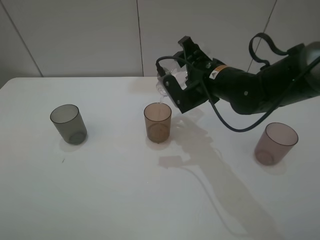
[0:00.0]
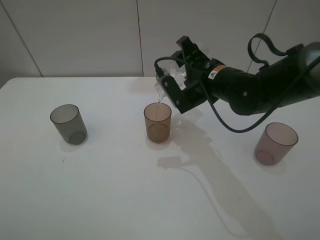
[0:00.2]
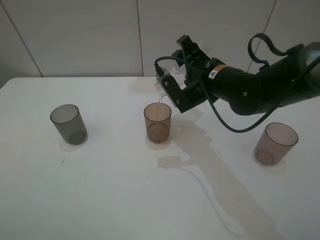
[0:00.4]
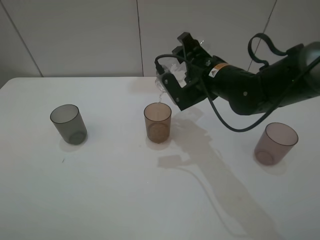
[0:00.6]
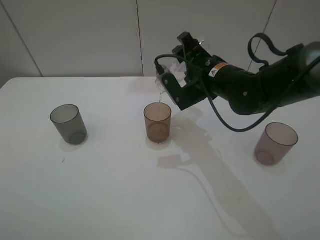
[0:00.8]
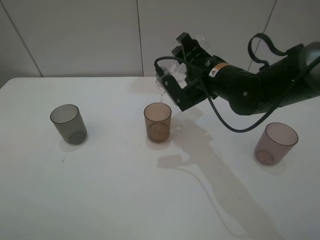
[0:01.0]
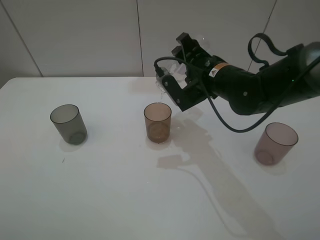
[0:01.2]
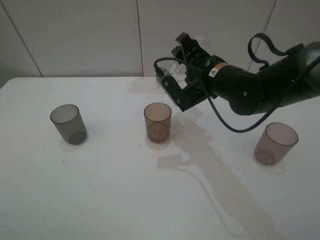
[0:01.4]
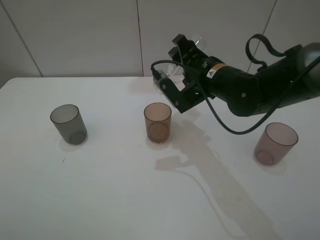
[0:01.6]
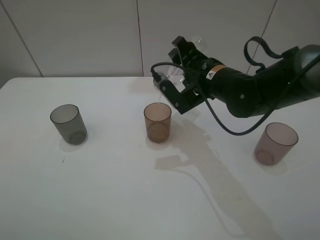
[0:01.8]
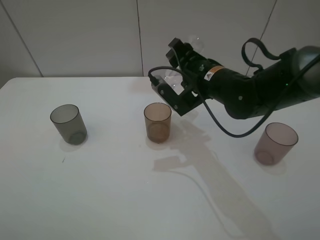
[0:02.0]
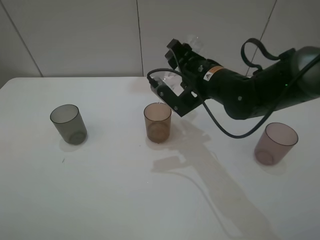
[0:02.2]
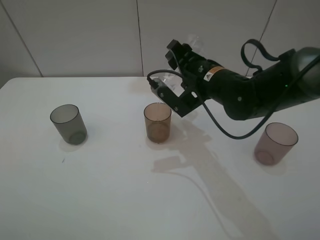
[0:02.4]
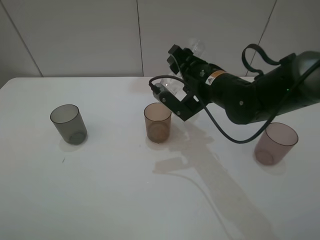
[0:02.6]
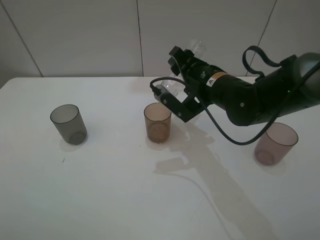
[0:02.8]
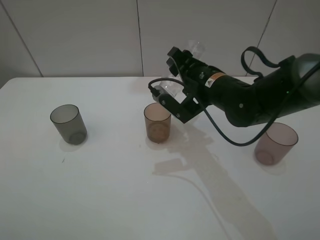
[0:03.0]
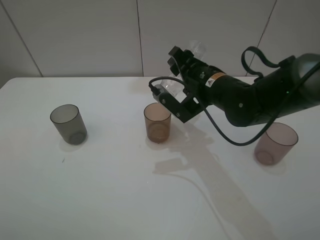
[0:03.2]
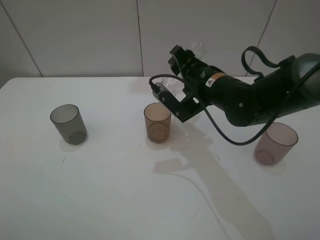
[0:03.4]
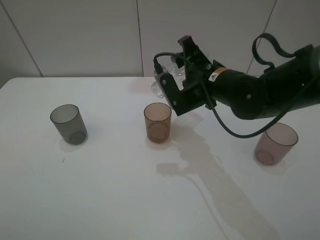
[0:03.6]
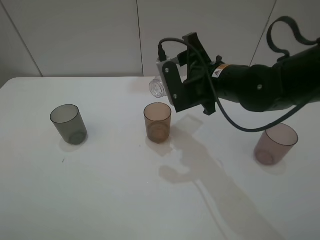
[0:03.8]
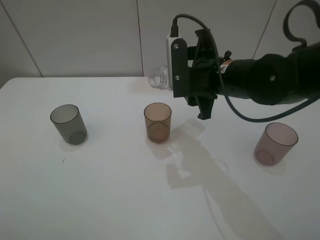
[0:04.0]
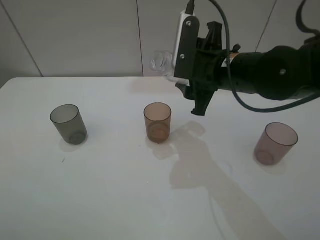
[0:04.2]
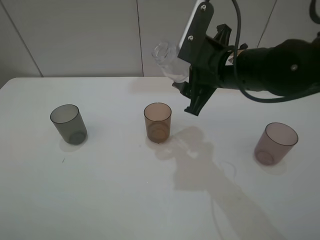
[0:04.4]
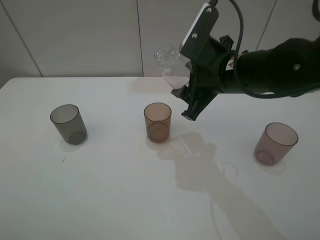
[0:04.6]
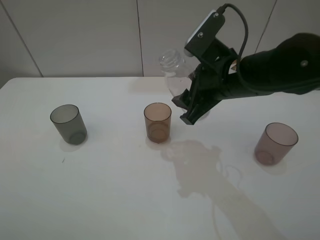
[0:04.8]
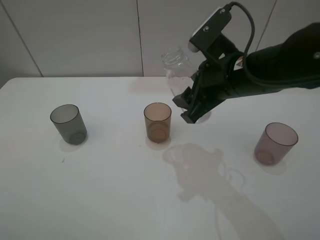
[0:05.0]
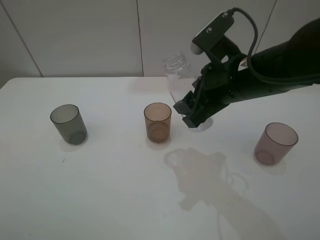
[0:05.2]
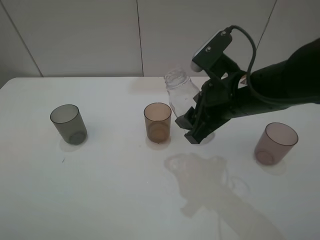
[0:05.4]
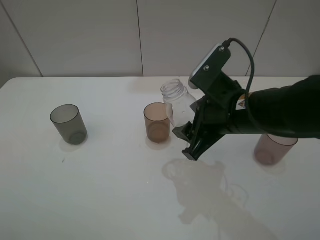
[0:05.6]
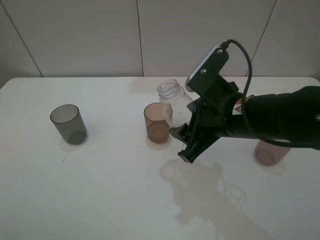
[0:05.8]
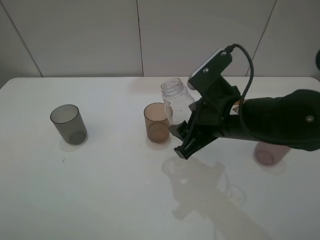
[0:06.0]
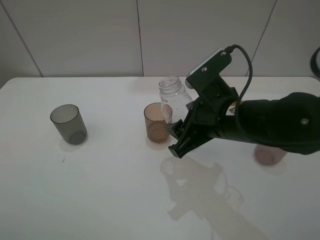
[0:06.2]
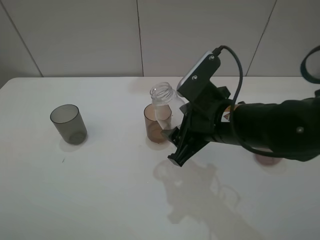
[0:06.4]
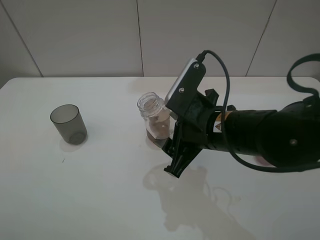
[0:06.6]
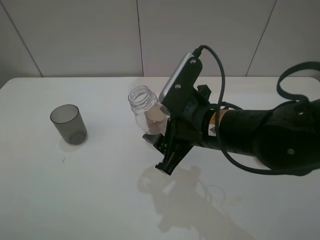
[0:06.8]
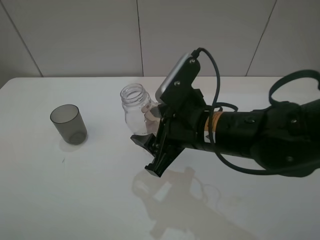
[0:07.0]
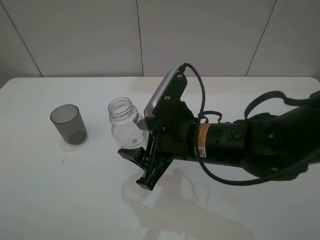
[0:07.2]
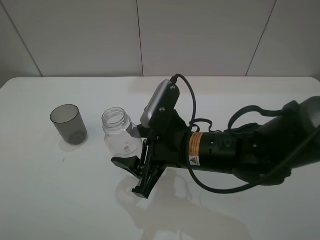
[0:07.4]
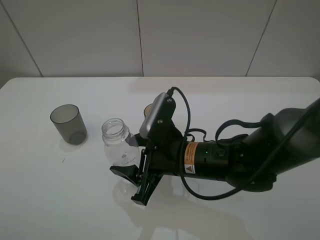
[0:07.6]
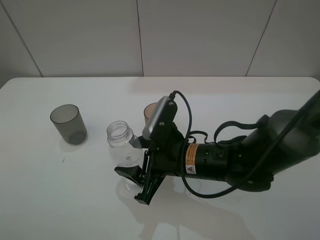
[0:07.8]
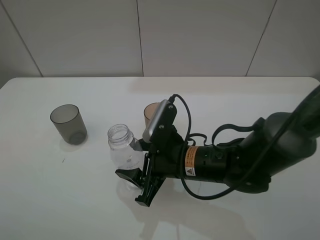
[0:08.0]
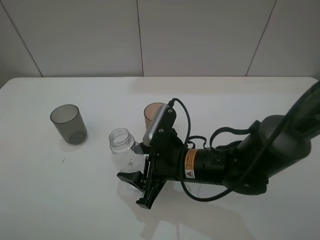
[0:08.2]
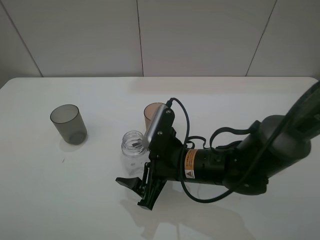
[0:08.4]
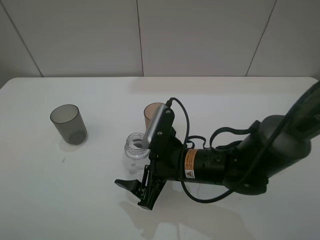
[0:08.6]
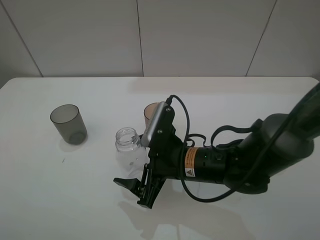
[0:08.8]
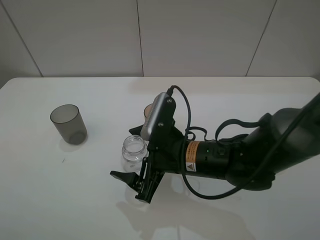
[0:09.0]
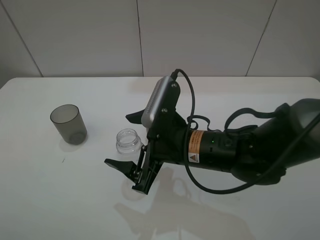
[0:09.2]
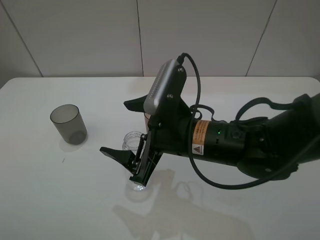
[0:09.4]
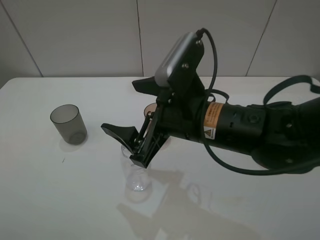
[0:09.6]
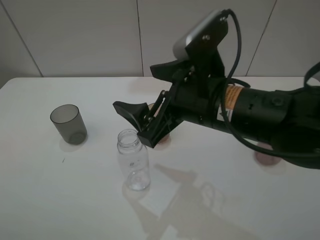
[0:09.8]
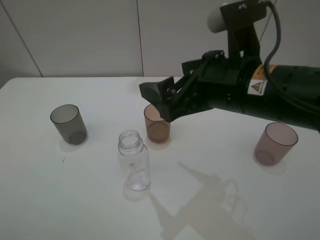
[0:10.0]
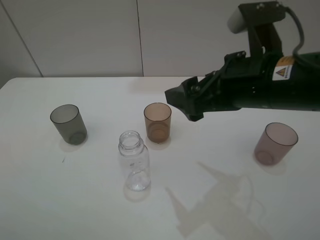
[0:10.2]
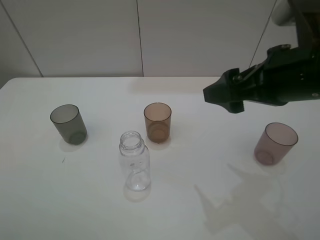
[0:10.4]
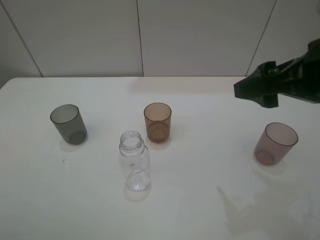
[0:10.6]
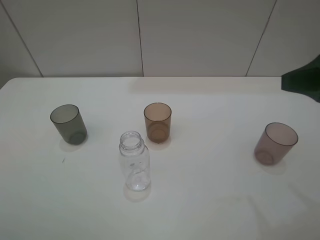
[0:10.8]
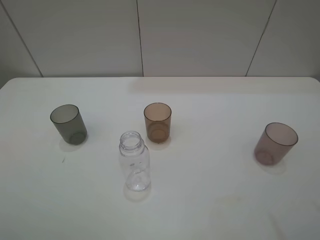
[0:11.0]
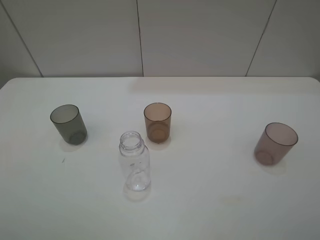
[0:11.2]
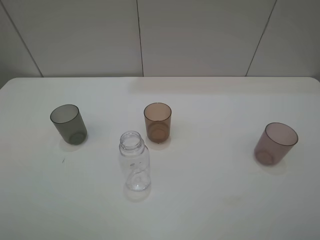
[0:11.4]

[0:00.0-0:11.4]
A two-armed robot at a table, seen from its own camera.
Task of the whole recording: pick up the bottle filled with water and pour water into the middle cup of the three cups.
Step, 0:00.0 to 0:04.6: Pour water from transparent bottle tobrown cup with the right gripper.
Step, 0:04.8 to 0:09.8: Place the transparent bottle with the right gripper.
0:00.0 to 0:01.4: Neither gripper changes place.
0:01.4 to 0:02.8: The grippers move only a little.
0:02.8 to 0:04.2: The right gripper shifts approximately 5 cm upward.
0:04.2 to 0:05.6: The right gripper shifts roughly 5 cm backward.
0:05.6 to 0:07.2: The right gripper heads to the left, covering approximately 5 cm.
0:07.2 to 0:08.6: The right gripper is displaced downward by roughly 5 cm, and opens its fingers.
0:08.6 to 0:10.0: The right gripper moves upward, approximately 15 cm.
0:10.0 to 0:11.4: The right gripper heads to the right, backward and upward, covering some 25 cm.

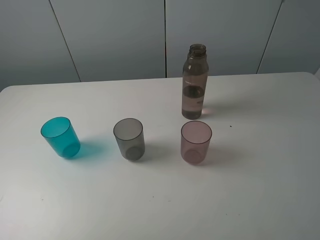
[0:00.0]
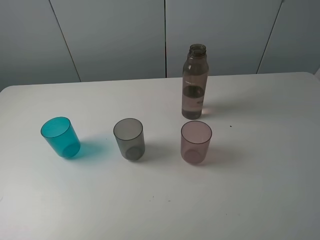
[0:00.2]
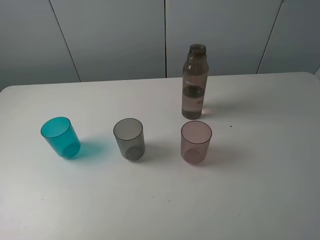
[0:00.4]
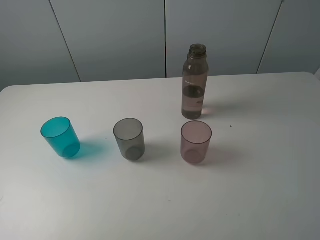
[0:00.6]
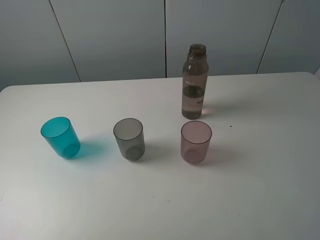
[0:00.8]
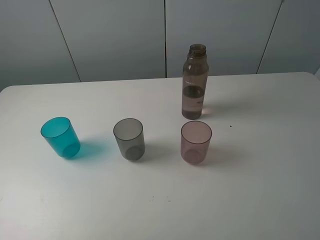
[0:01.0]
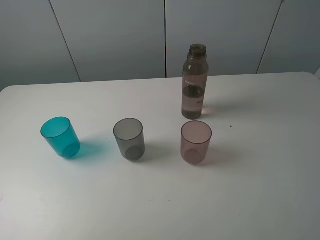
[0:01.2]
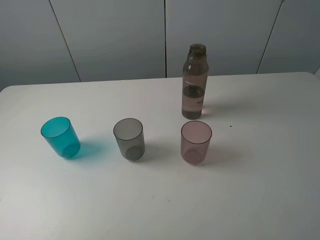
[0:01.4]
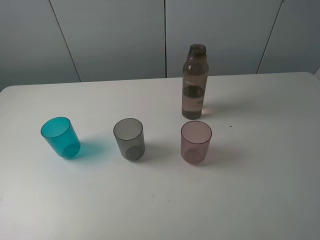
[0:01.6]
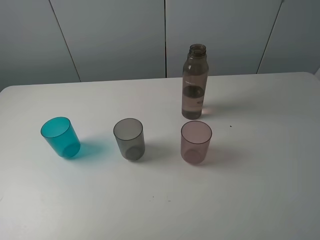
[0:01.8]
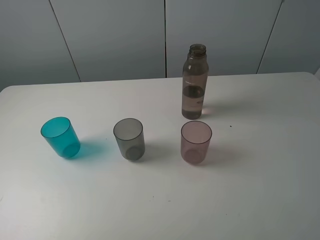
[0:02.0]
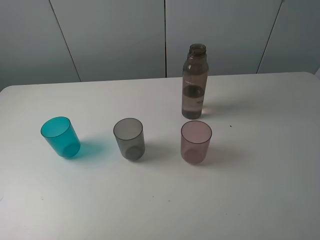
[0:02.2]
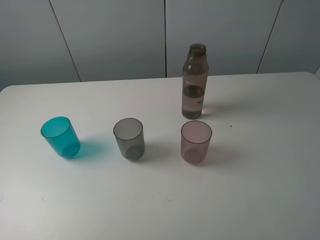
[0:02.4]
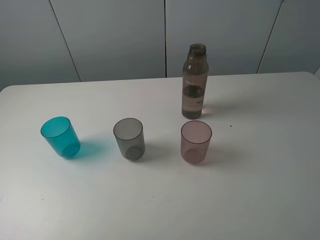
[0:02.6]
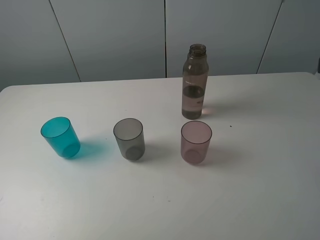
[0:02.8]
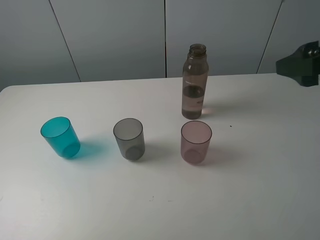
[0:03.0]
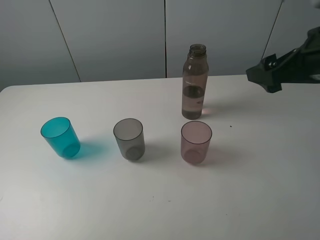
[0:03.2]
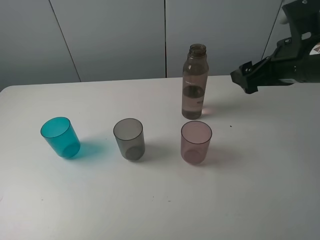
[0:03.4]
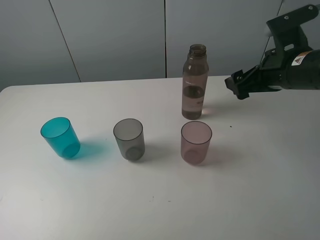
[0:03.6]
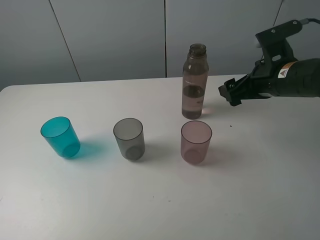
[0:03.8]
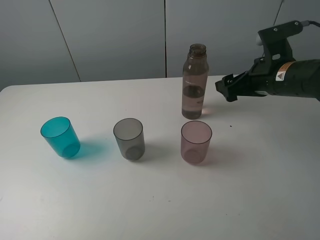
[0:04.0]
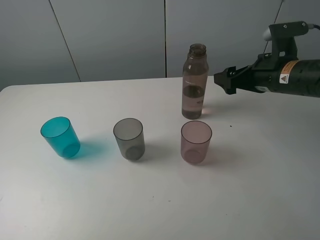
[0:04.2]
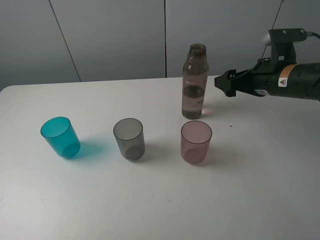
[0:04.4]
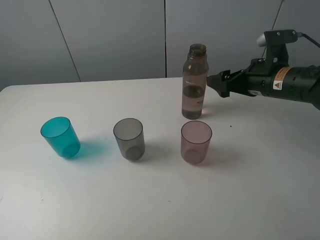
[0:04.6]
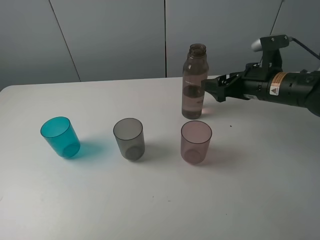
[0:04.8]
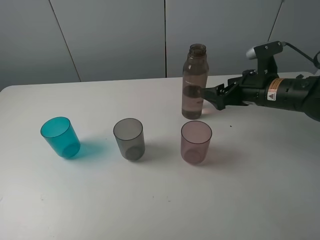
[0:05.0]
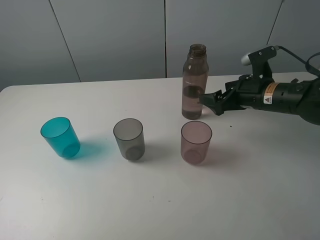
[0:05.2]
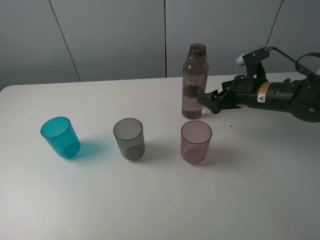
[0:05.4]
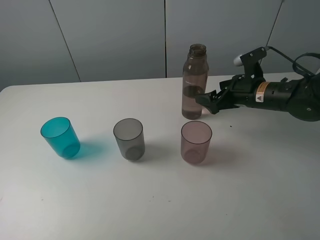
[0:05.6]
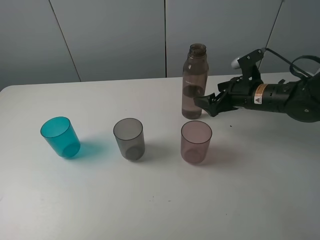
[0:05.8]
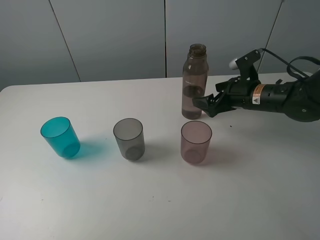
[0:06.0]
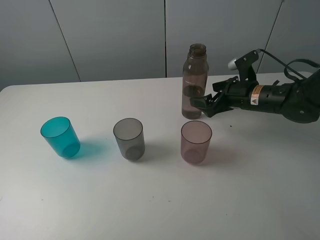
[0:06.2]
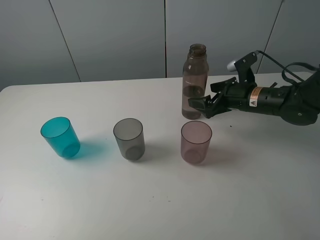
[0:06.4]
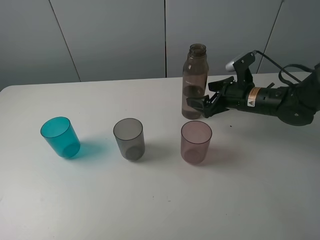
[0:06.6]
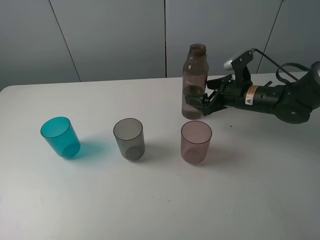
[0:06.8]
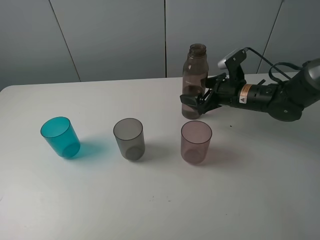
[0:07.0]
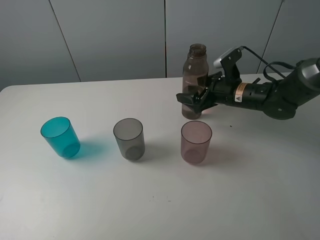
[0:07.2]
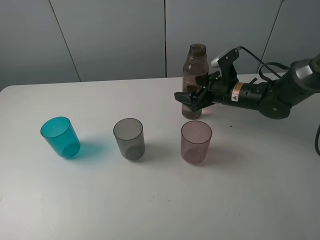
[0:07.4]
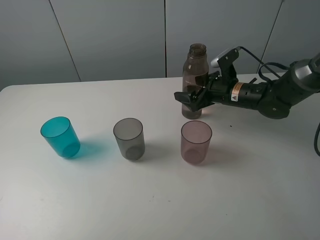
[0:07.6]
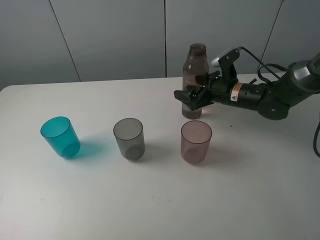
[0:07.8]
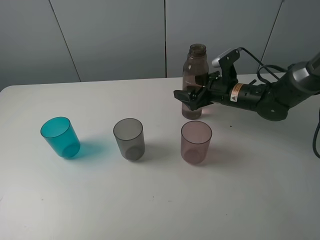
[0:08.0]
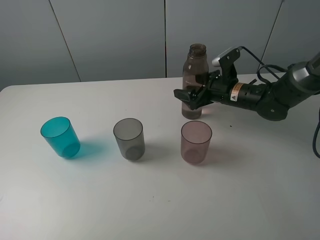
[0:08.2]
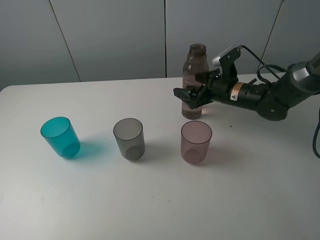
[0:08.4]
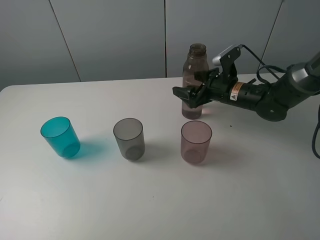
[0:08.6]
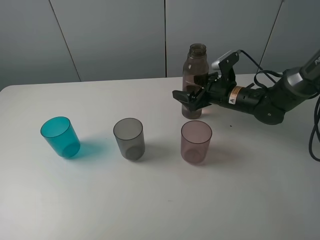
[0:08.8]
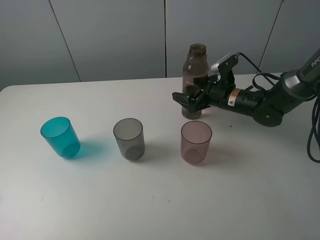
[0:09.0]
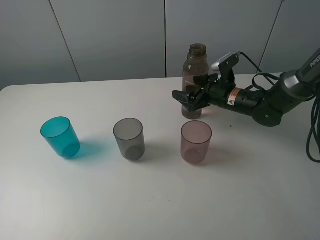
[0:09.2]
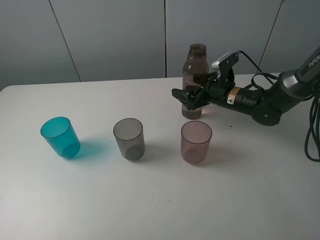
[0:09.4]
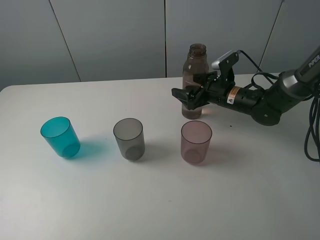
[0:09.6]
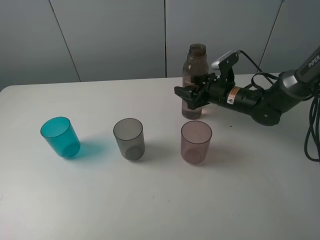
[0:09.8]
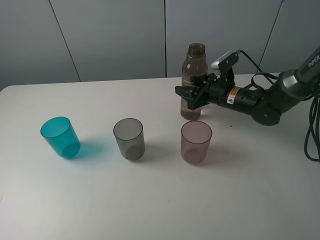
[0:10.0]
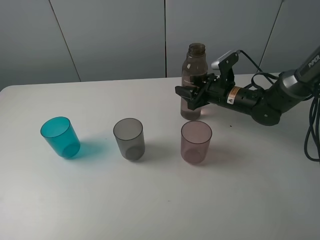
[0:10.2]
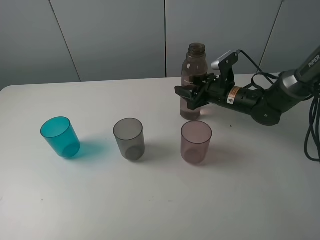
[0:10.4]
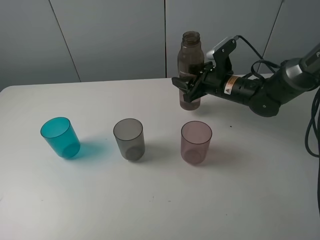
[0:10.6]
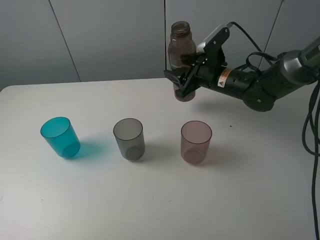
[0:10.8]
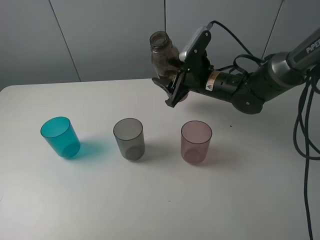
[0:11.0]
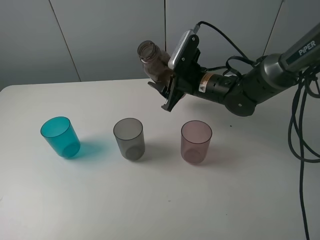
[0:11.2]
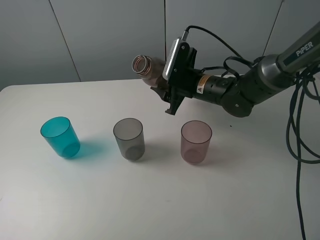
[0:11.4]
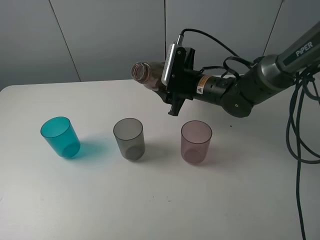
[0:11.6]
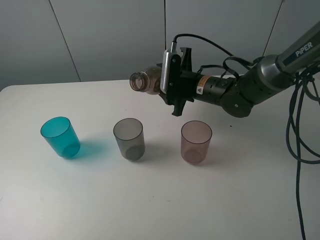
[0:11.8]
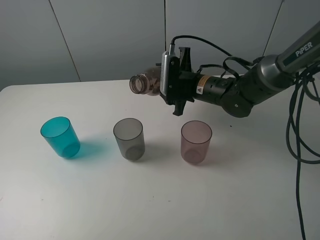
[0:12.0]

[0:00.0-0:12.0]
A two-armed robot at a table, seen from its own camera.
Task of the whole recording: pick up the bottle filled with water and pour water into the middle cup of the three cups.
Step, 0:00.0 to 0:10.4: Grasp the transparent bottle with the right gripper.
0:00.0 to 0:01.6: Neither gripper changes place.
0:01.6 to 0:03.0: The right gripper goes about 20 cm forward.
0:03.0 to 0:04.4: The right gripper is displaced downward and forward by roughly 15 cm.
0:04.4 to 0:06.0: The right gripper heads downward, covering about 5 cm.
0:06.0 to 0:07.6: The right gripper moves about 5 cm.
0:07.6 to 0:09.0: The grippers move only a little.
0:09.0 to 0:10.4: The right gripper closes up.
0:10.4 to 0:12.0: The right gripper goes roughly 10 cm to the left.
